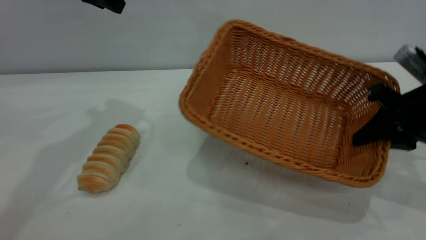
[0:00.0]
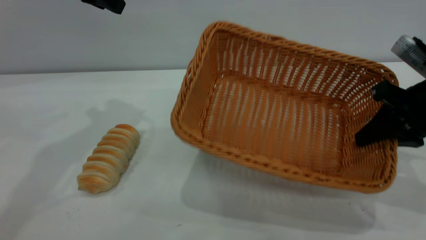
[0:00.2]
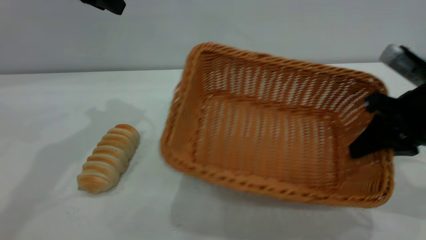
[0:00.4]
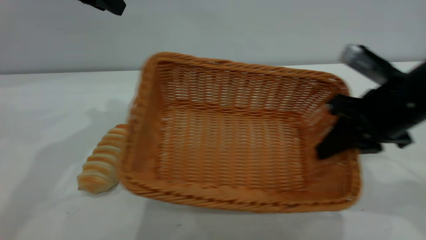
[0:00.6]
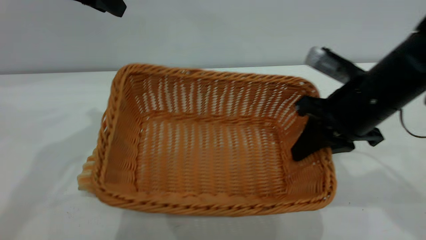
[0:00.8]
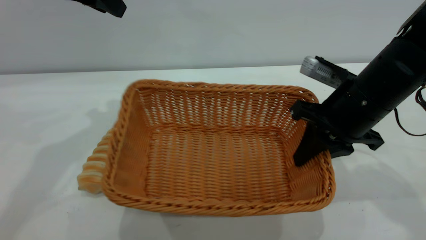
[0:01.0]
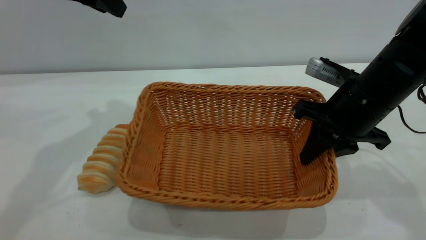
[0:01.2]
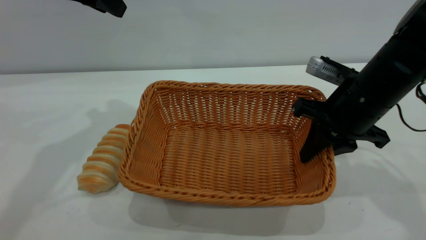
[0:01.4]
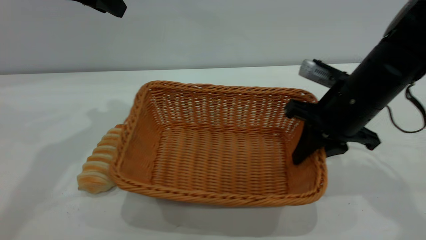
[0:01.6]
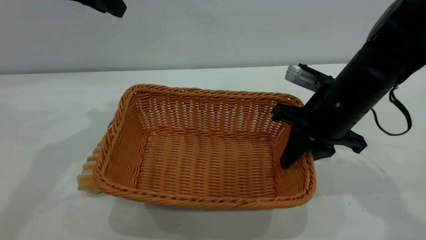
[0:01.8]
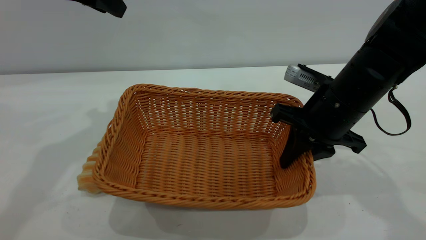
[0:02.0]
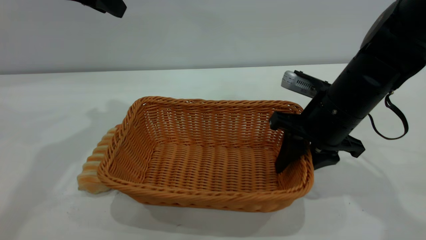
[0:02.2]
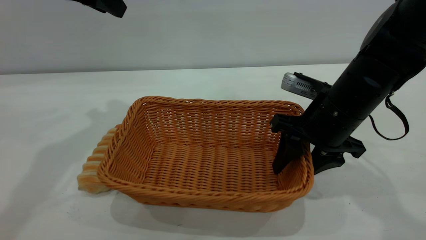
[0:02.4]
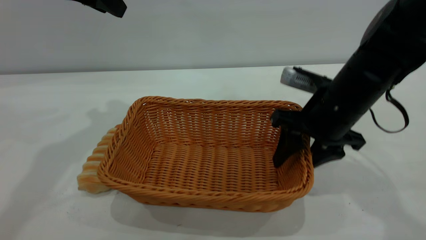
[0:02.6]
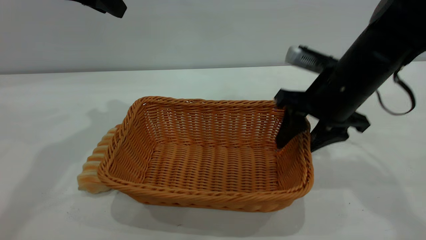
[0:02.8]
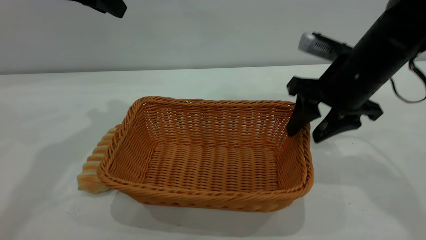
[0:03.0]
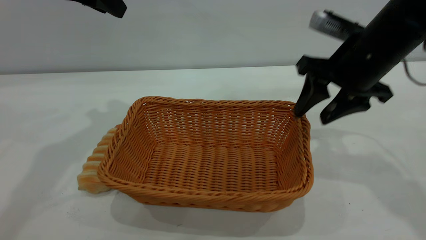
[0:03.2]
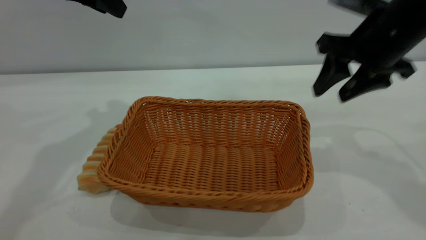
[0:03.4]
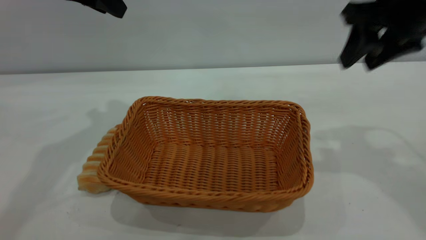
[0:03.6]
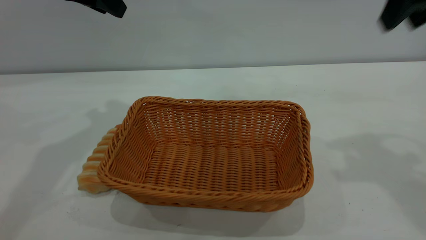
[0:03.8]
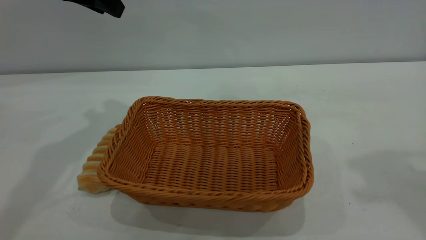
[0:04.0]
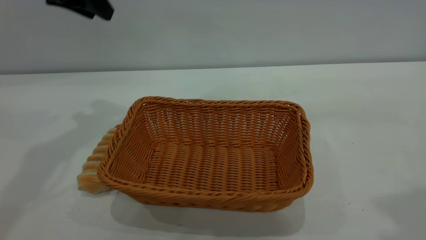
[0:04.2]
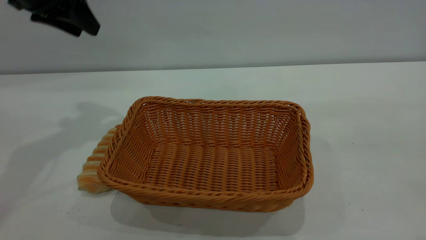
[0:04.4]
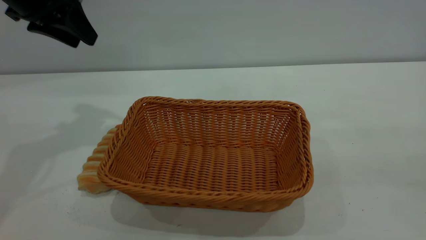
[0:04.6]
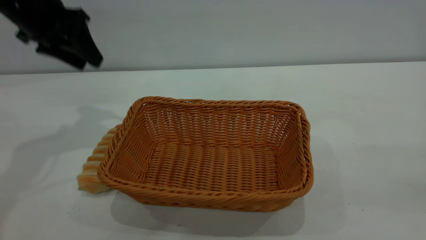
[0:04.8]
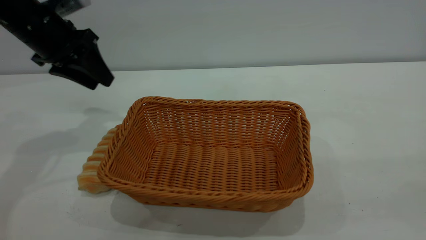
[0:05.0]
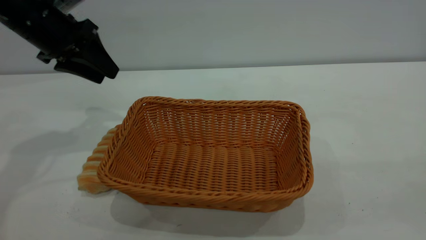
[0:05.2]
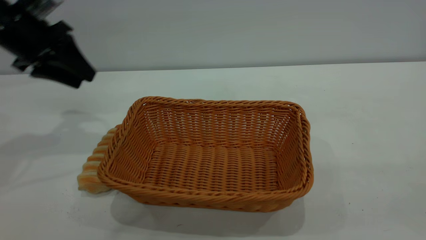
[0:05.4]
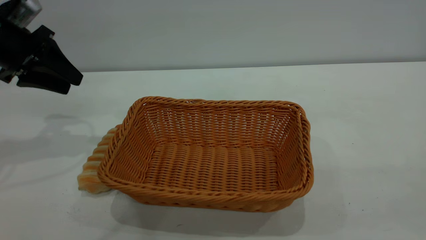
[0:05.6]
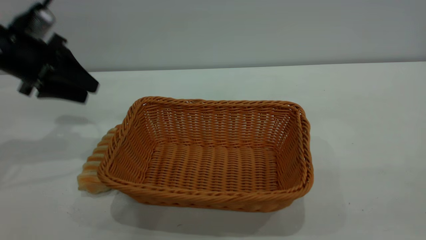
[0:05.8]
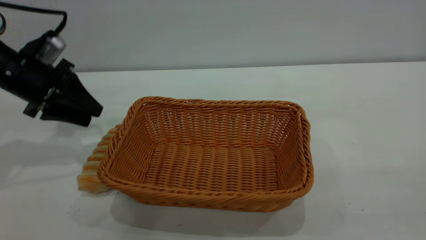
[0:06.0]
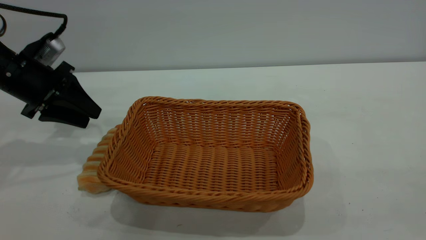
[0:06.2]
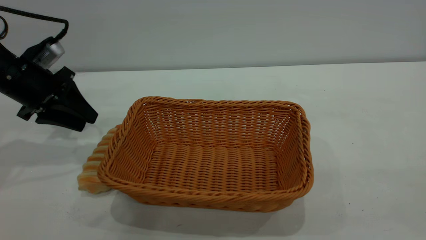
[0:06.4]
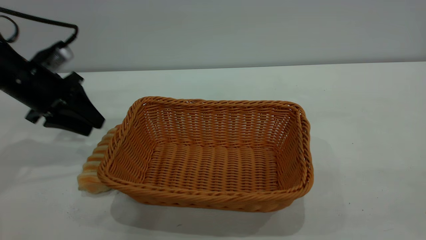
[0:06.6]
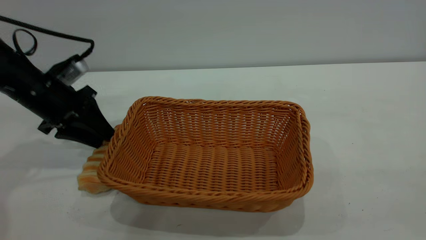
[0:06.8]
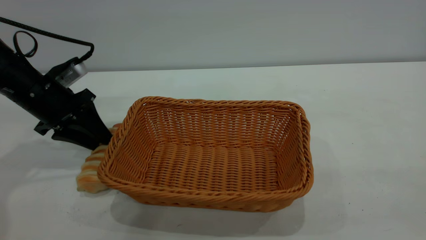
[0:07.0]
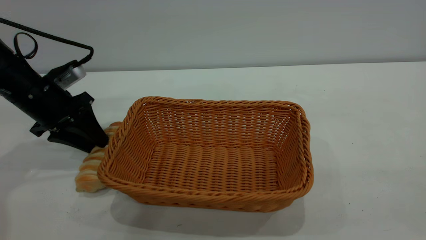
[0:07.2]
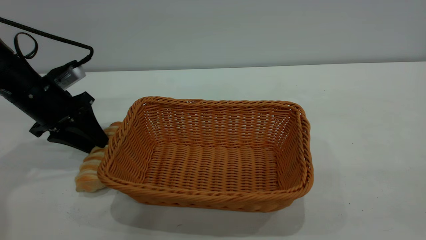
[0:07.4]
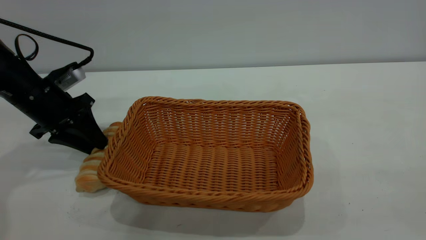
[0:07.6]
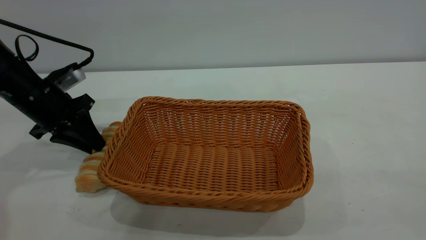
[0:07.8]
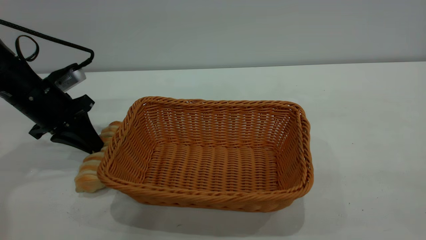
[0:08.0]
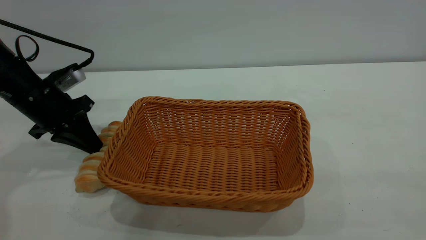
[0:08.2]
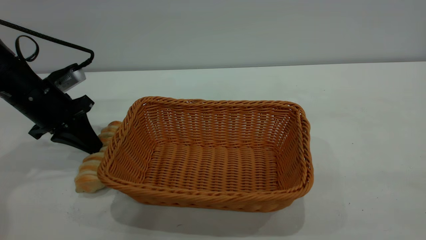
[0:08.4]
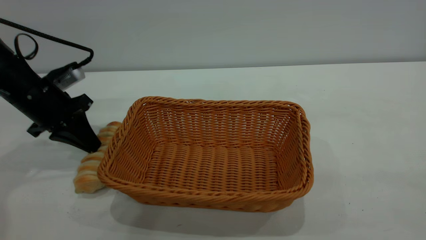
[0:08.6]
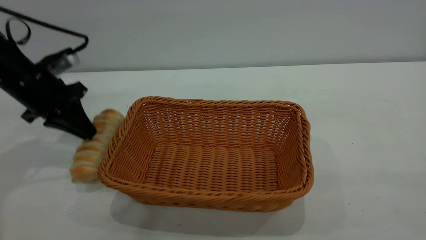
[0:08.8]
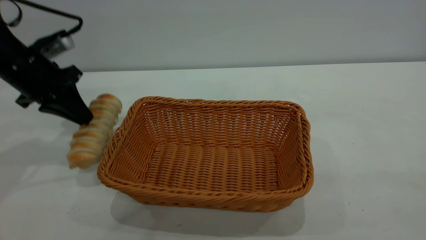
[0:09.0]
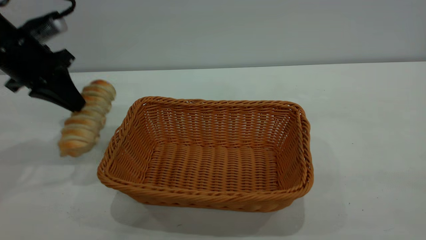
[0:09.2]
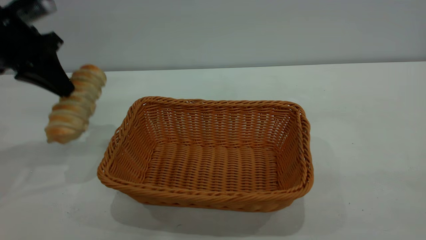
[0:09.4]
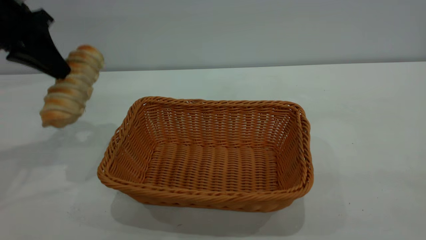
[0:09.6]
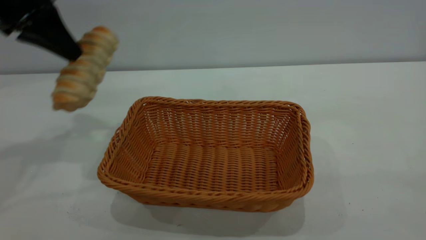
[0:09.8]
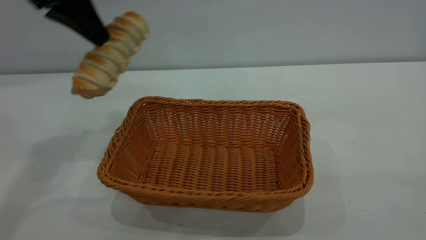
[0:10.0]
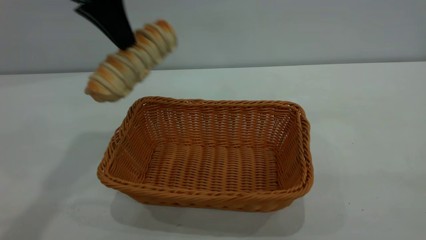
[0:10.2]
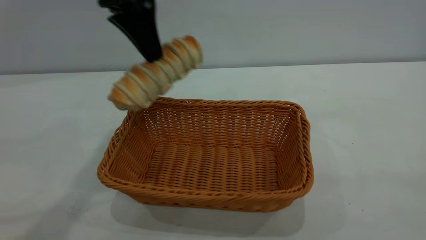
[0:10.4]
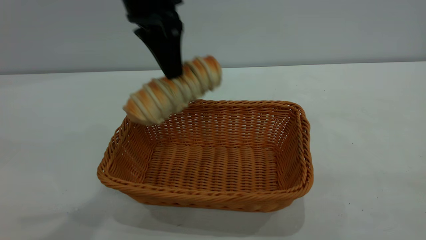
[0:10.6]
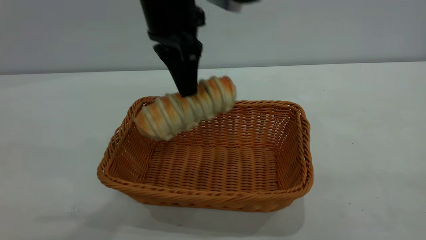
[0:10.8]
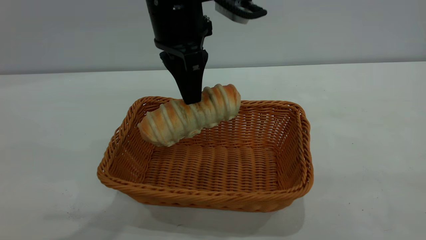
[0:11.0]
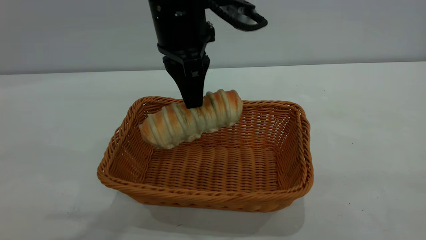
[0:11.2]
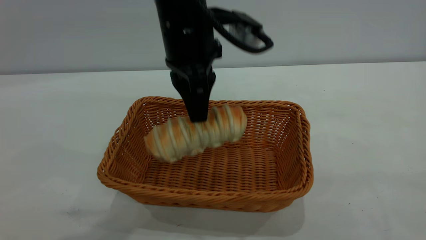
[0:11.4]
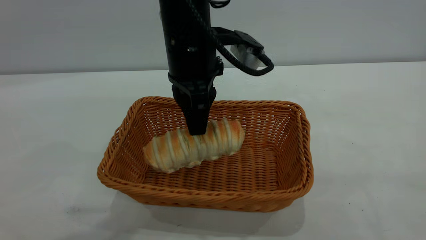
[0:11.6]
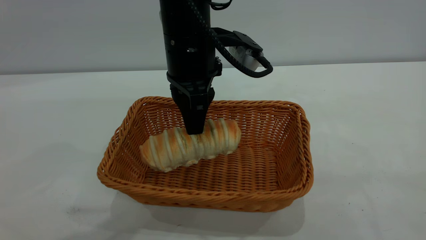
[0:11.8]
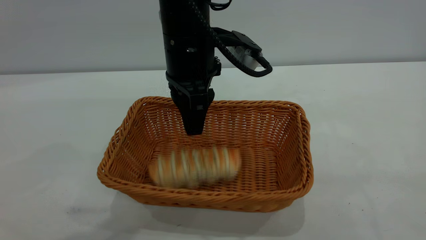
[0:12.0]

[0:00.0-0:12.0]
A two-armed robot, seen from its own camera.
Task of the whole recording: One hand grasps the yellow basket and places it in the middle of the table, while the other hand picks up the long bread and puts it into the yellow basket.
Step, 0:00.0 to 0:03.2: Move the basket to the center of view.
0:00.0 to 0:01.6: The right gripper travels to the left by approximately 10 cm.
0:01.6 to 0:03.0: The right gripper opens its fingers.
0:03.0 to 0:04.4: The right gripper shifts about 30 cm backward, upward and to the right, while the left gripper ends up approximately 5 cm from where it was.
0:04.4 to 0:06.0: The left gripper shifts roughly 15 cm downward.
0:06.0 to 0:07.6: The grippers move only a little.
0:07.6 to 0:09.0: The left gripper is displaced upward by some 5 cm, and closes its fingers.
0:09.0 to 0:10.4: The left gripper moves to the right and upward, about 20 cm.
0:10.4 to 0:12.0: The left gripper travels to the right and downward by approximately 10 cm, and opens its fingers.

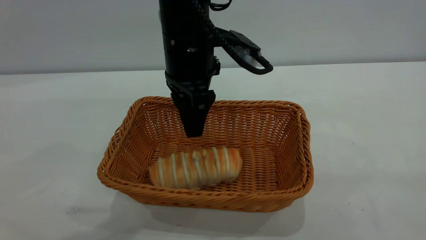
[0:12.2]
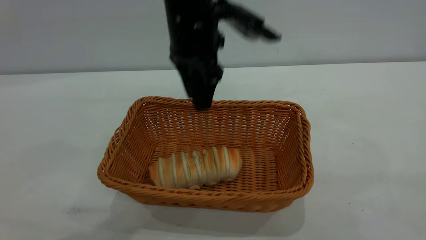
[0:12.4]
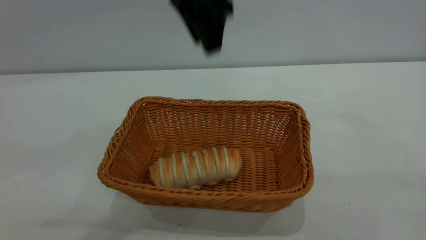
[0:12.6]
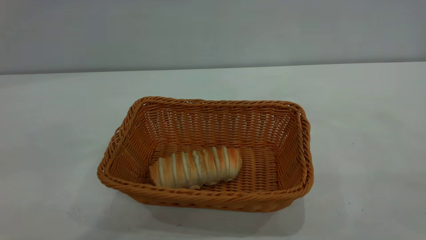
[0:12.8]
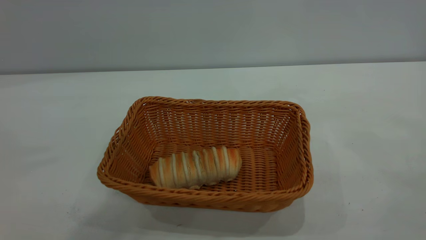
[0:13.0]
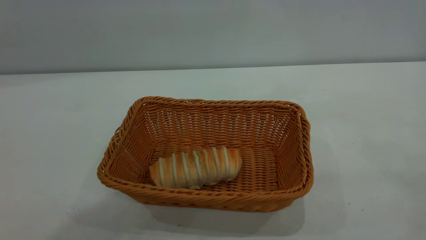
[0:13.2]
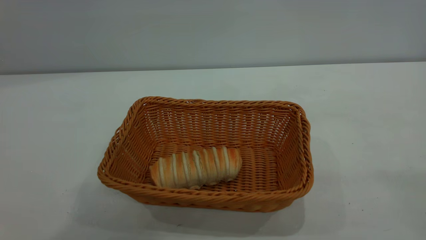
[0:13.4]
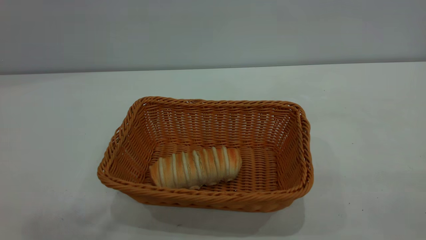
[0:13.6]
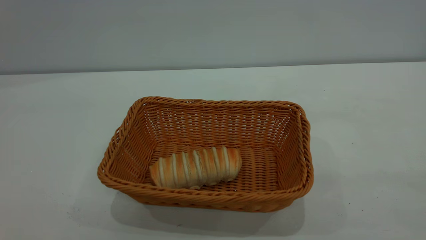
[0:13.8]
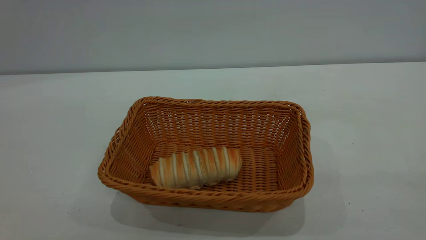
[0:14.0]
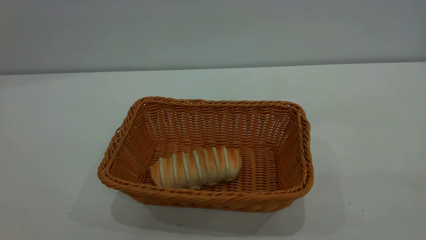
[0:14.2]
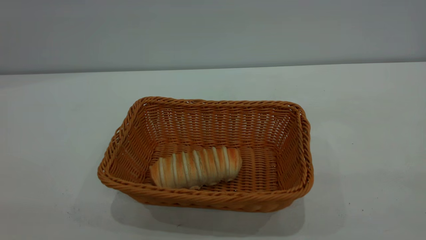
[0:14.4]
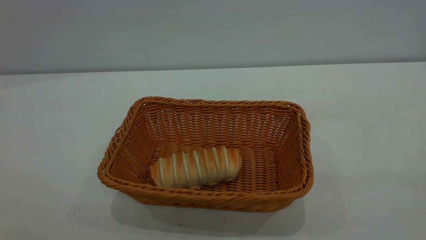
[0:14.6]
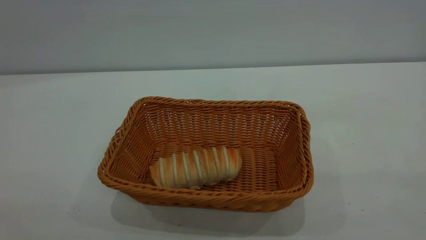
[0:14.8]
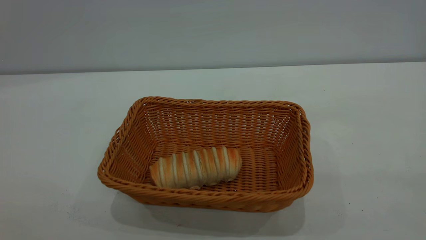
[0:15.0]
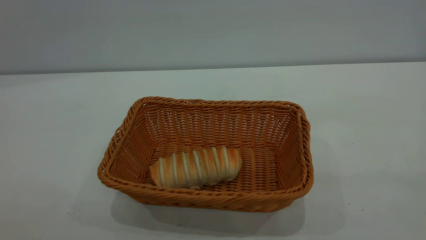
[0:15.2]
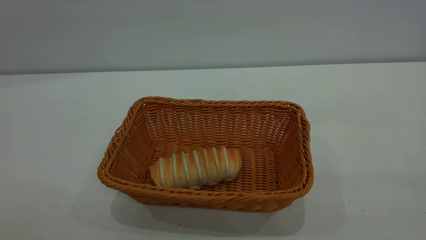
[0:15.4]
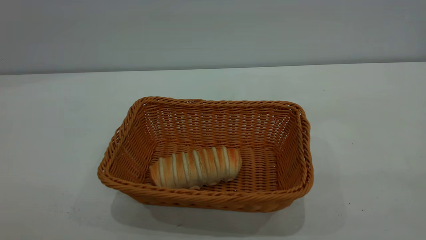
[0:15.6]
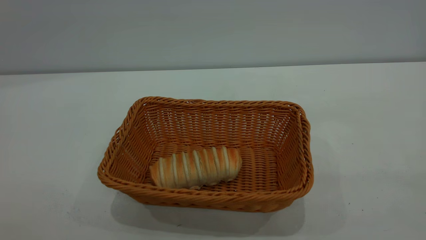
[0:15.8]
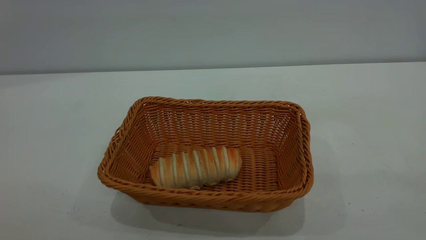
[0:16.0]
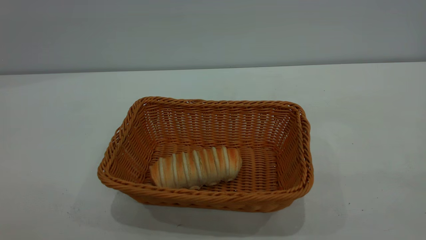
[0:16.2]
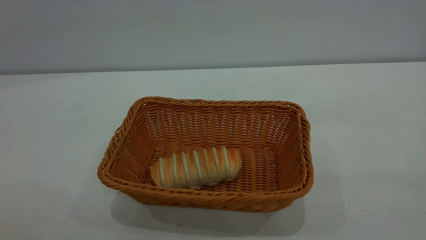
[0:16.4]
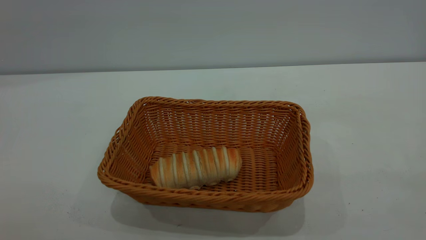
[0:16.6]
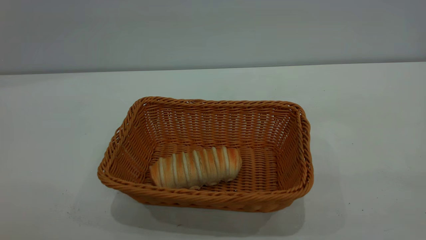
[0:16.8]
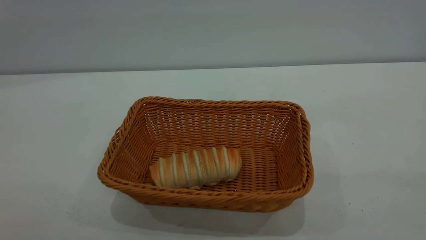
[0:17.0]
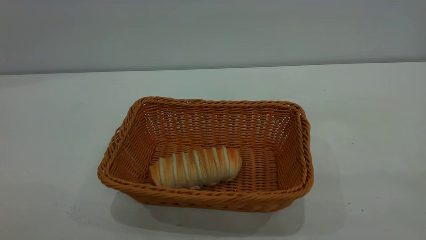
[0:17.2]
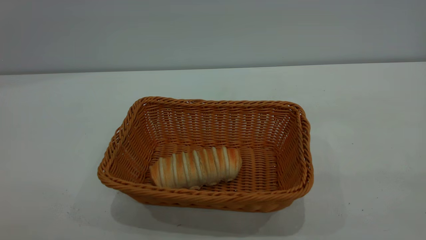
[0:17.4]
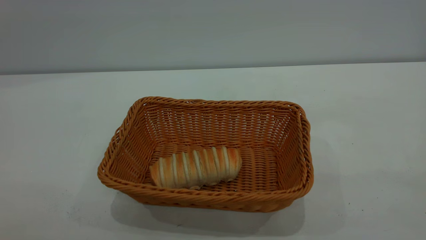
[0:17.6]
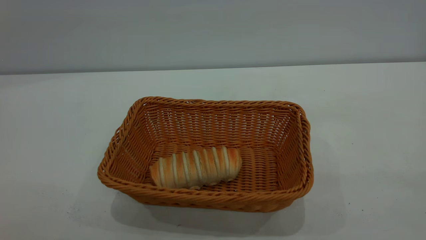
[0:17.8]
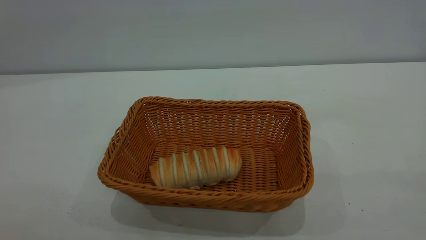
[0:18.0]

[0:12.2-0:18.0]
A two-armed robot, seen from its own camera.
Task of the whole recording: One hand grasps the yellow basket and places it in the middle of the table, while the other hand picks up the long bread and puts it into the yellow basket.
0:12.2 to 0:13.6: The left gripper goes some 50 cm upward and backward.
0:16.6 to 0:18.0: The two grippers keep their place.
